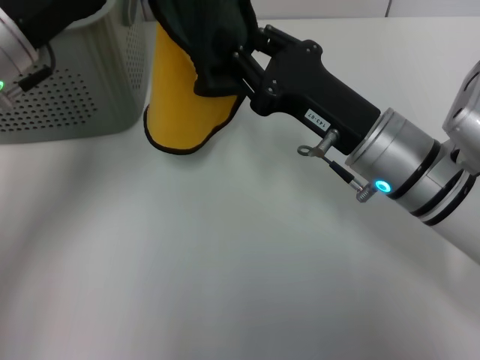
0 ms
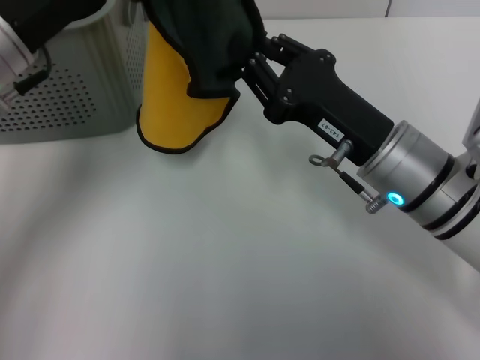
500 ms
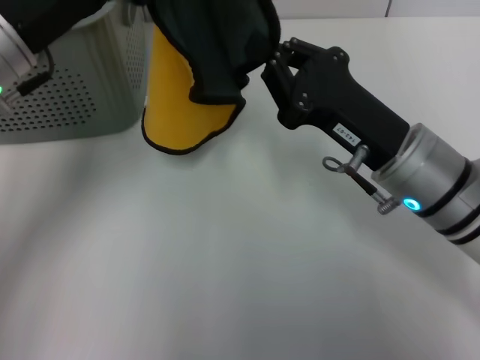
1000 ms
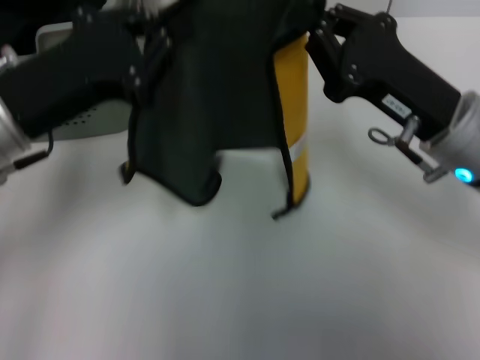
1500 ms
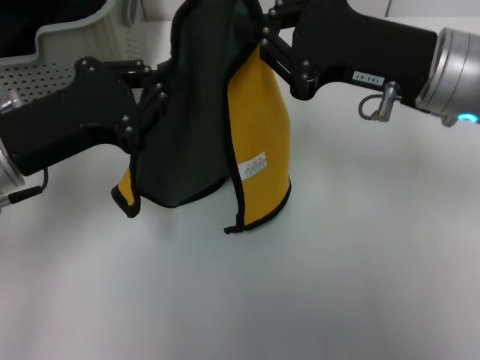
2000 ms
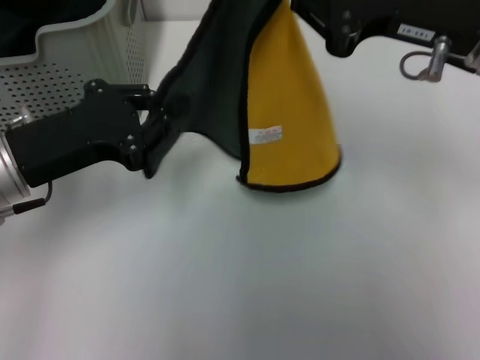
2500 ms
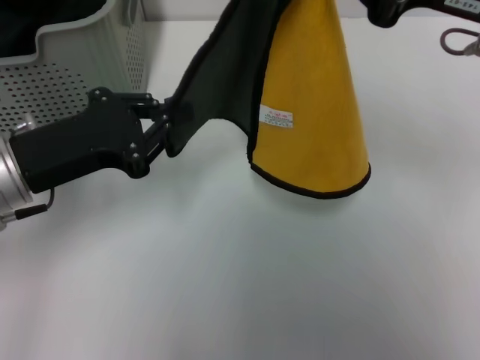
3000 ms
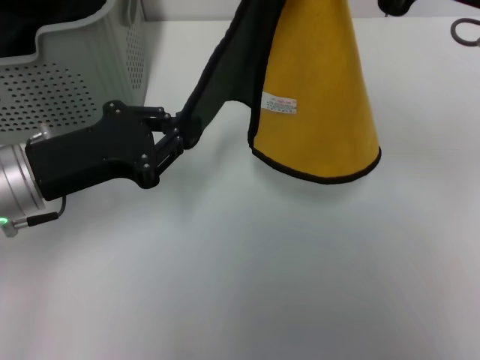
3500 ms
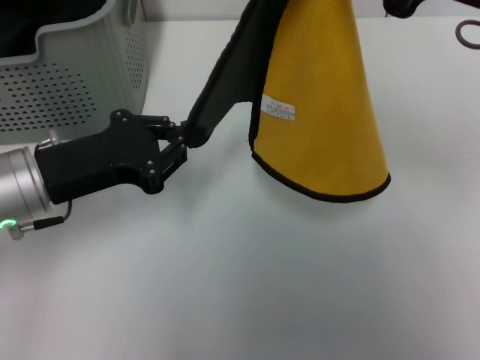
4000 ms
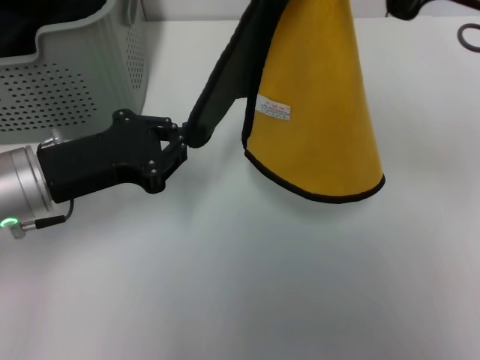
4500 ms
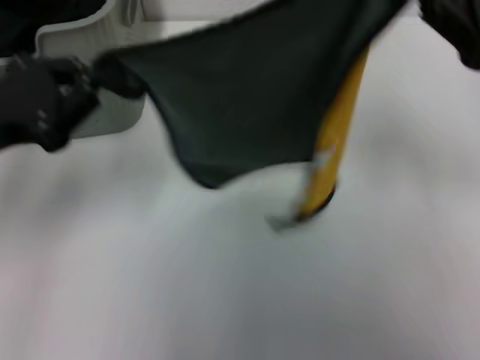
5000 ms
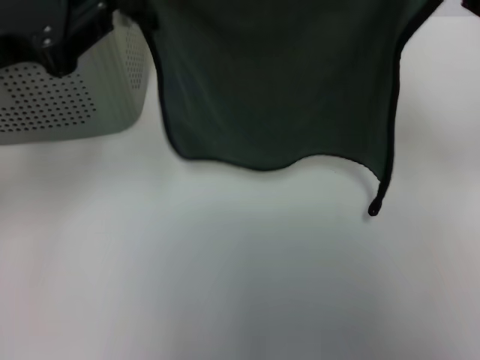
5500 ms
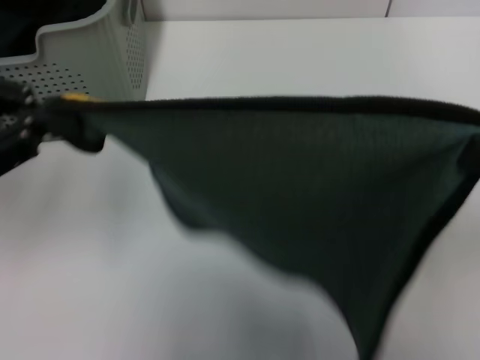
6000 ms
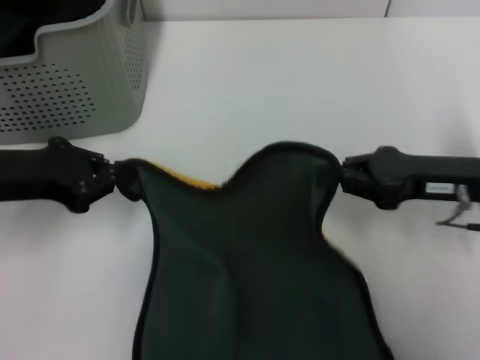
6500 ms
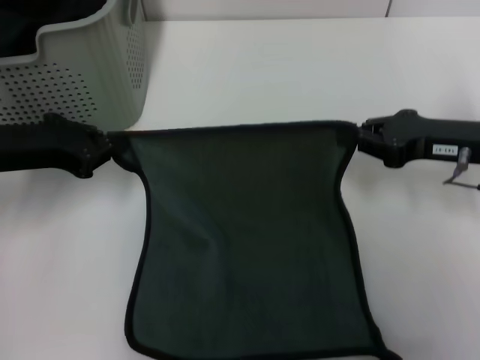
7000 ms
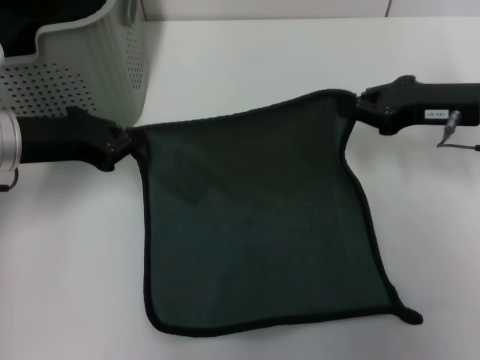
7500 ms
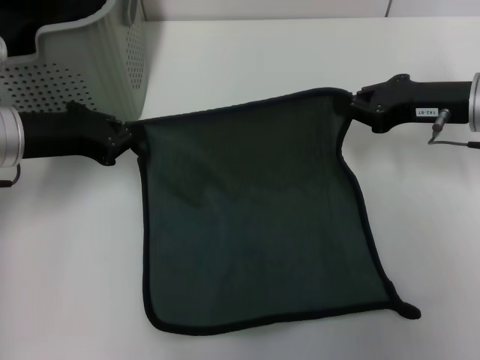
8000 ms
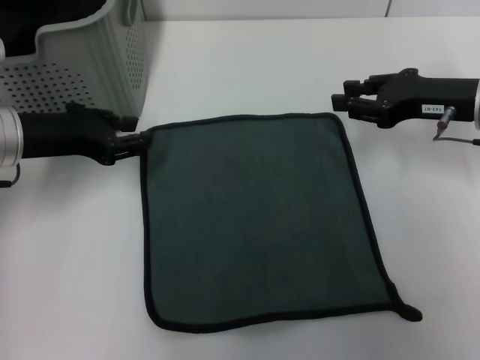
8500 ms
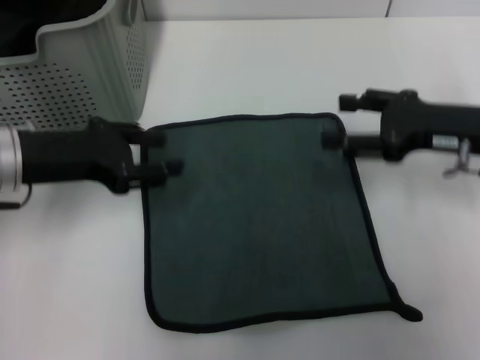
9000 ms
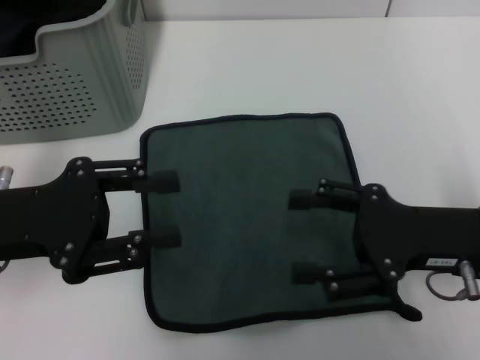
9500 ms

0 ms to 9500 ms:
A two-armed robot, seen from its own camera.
Task of the whole recording: pick up the towel from the storage box and lay it flat on the table.
Step, 500 ms to 8000 ms: Spread the towel flat with the right gripper.
0 ms to 2000 ms: The left gripper travels downward by roughly 5 cm; the right gripper goes about 10 cm upward, and closes up.
2000 ms to 4000 ms: The right gripper travels upward by some 5 cm.
4000 ms to 5500 ms: The right gripper travels to the right by some 10 cm; the left gripper shifts approximately 10 cm upward.
5500 ms to 7500 ms: The right gripper is displaced downward and forward by approximately 10 cm. The left gripper moves downward, about 10 cm.
7500 ms to 9500 ms: Both grippers travel together backward, approximately 10 cm. The left gripper opens its fingers. The right gripper opens its fingers.

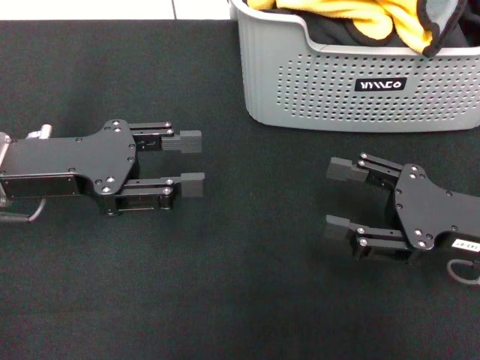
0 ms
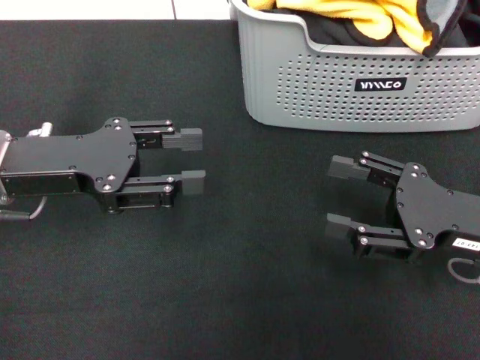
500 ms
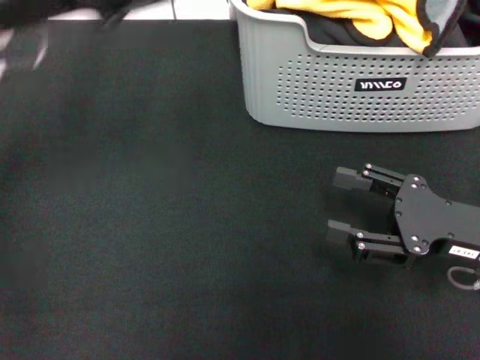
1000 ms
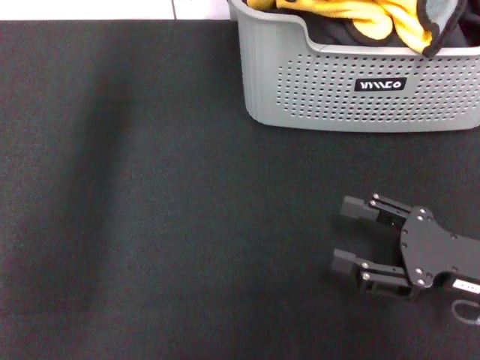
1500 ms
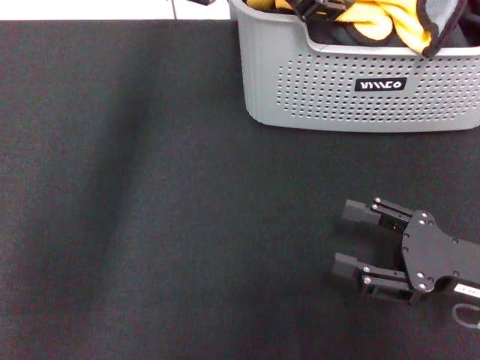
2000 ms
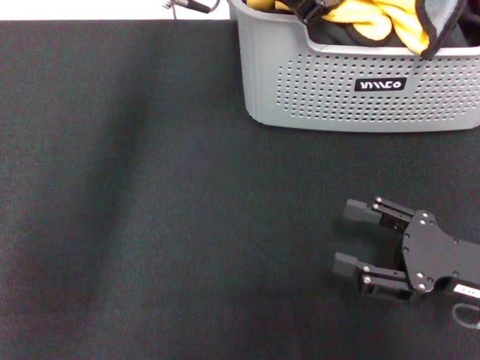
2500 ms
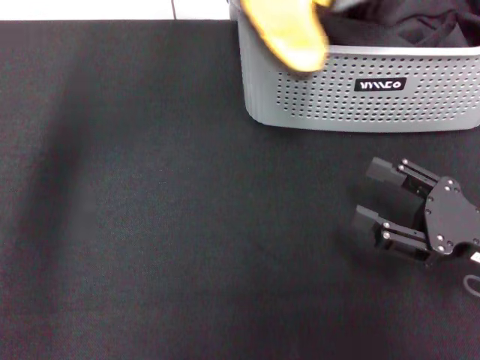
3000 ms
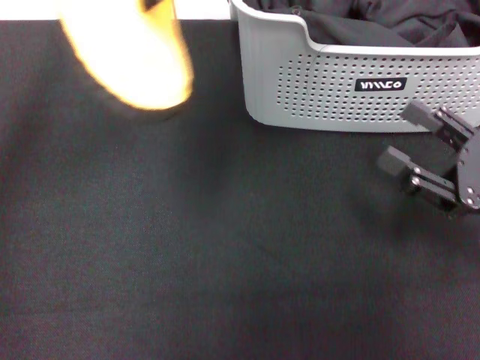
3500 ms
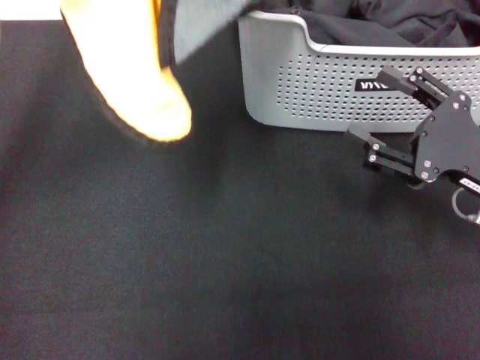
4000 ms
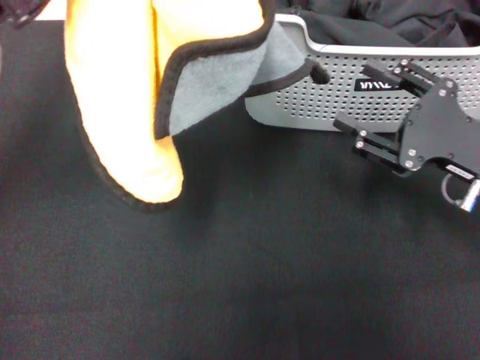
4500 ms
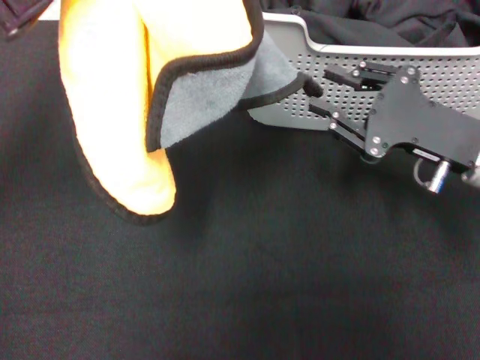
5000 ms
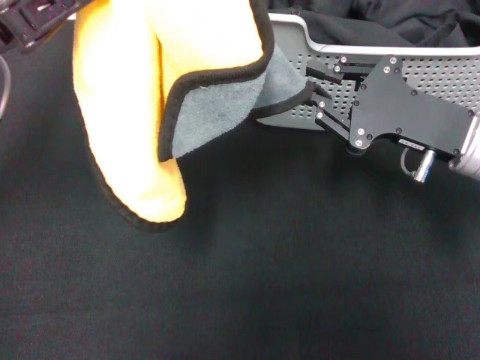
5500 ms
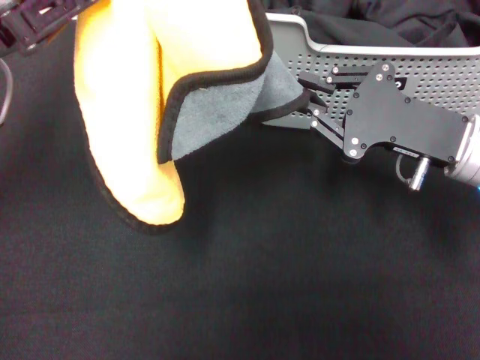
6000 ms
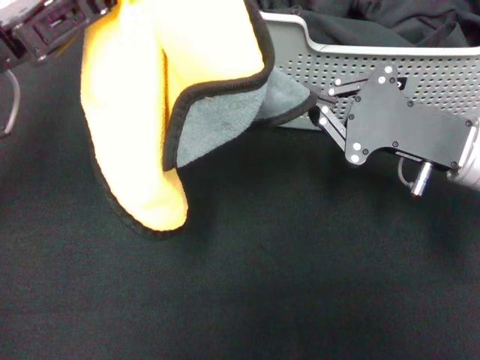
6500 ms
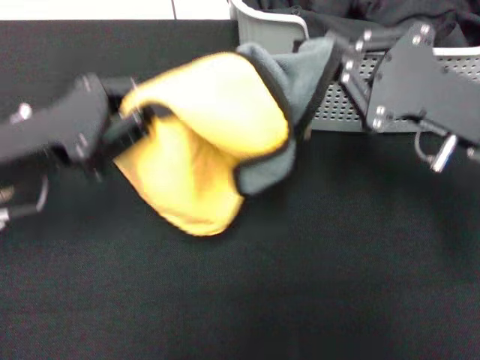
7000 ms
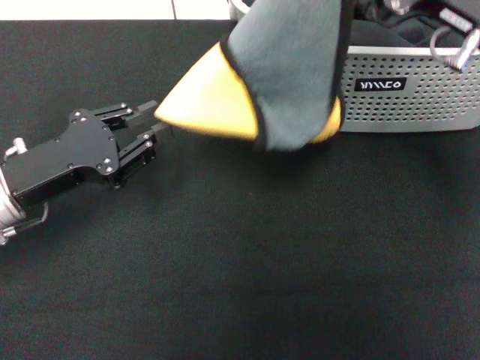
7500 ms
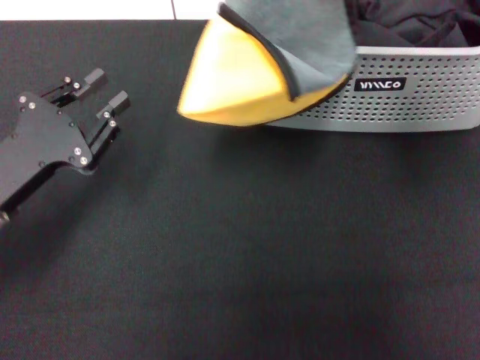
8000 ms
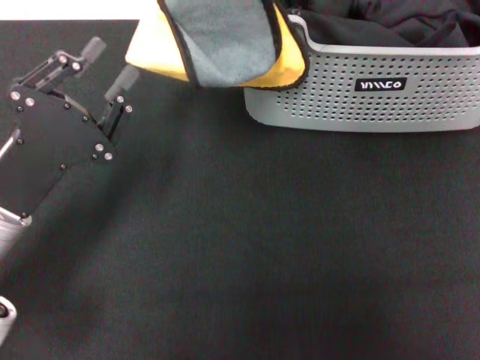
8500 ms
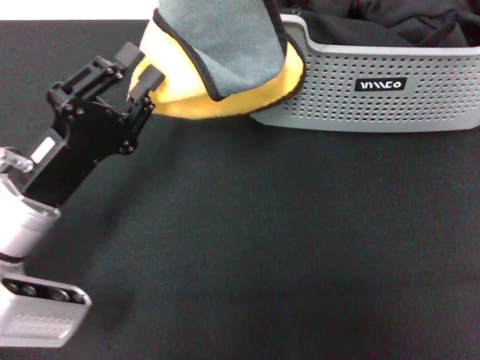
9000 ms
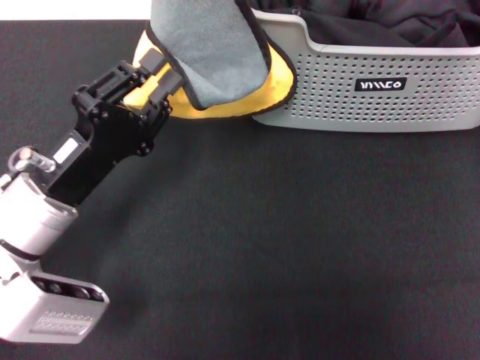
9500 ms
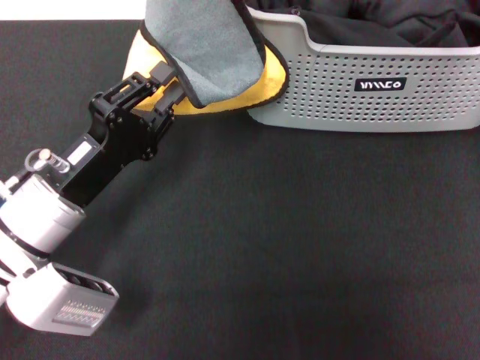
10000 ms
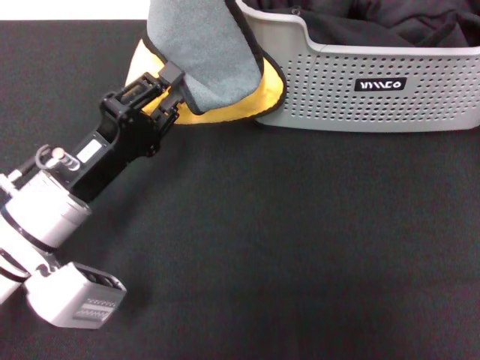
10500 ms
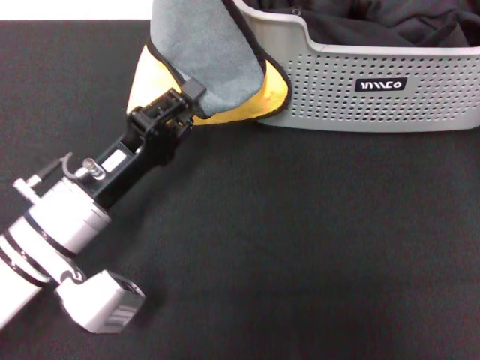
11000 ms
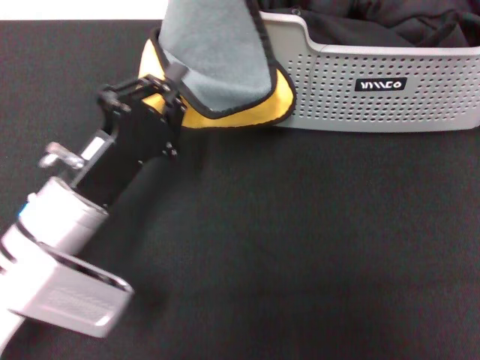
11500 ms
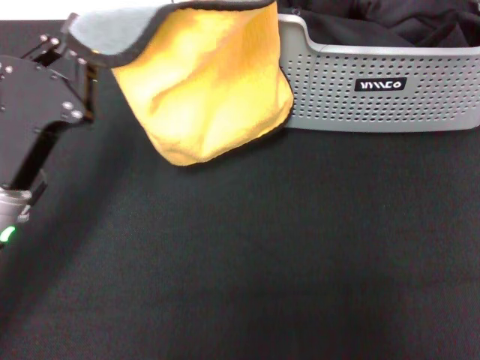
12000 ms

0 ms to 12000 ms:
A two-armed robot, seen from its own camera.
Task of the whole recording: pick up the towel from the storage box and lay it flat on the black tablecloth.
Step, 0 ms to 2500 ms: Pick up a towel with the left gripper.
Step, 3000 ms to 6000 ms: Spread the towel flat with the left gripper.
0 ms to 2000 ms: The left gripper travels to the right, forward and upward by approximately 25 cm.
2000 ms to 4000 ms: The right gripper goes roughly 5 cm forward. Meanwhile the left gripper heads to the left and backward, covering approximately 20 cm, and closes its fingers.
4000 ms to 6000 ms: The right gripper shifts by approximately 5 cm, and closes up.
6000 ms to 8000 ms: The right gripper goes roughly 15 cm upward; the left gripper is displaced downward and backward by approximately 15 cm, and opens up.
8000 ms to 10000 ms: The left gripper goes approximately 5 cm to the right. Meanwhile the right gripper moves to the left and forward, roughly 10 cm.
10000 ms to 12000 ms: The right gripper heads to the right, covering roughly 5 cm, while the left gripper closes up.

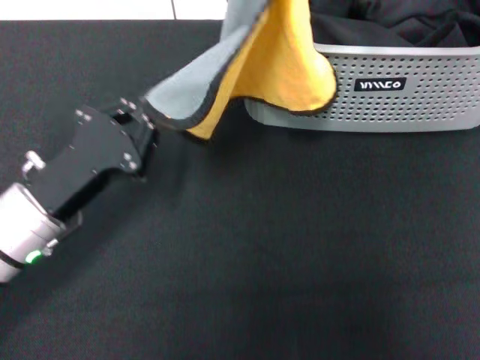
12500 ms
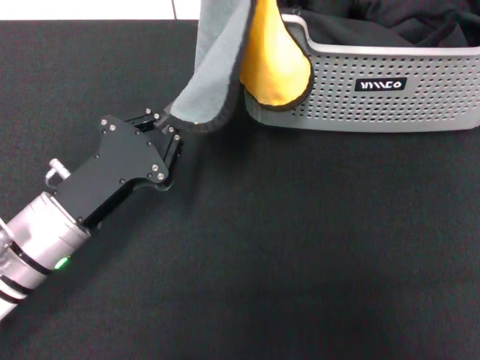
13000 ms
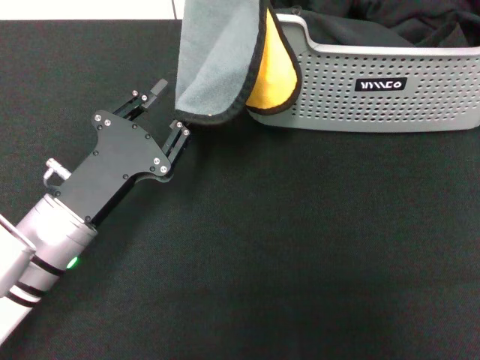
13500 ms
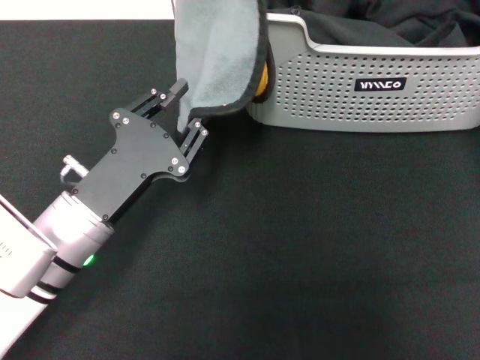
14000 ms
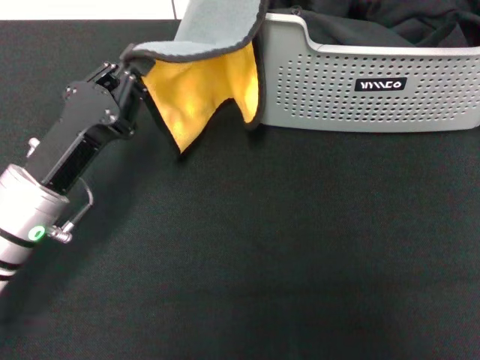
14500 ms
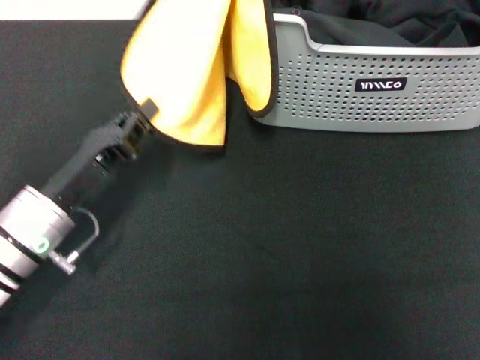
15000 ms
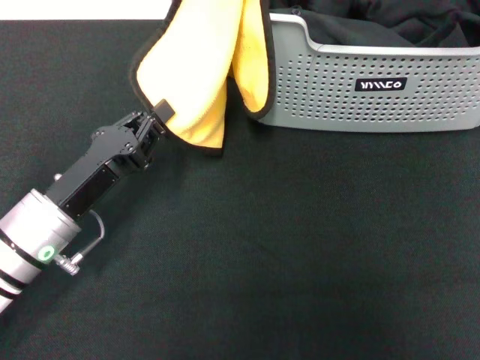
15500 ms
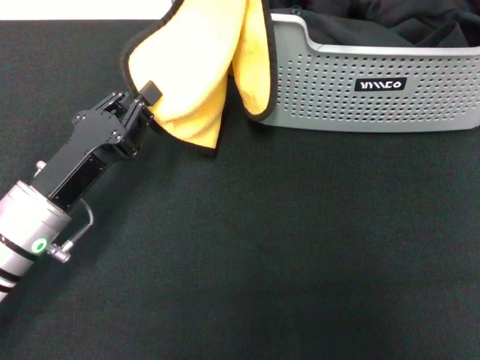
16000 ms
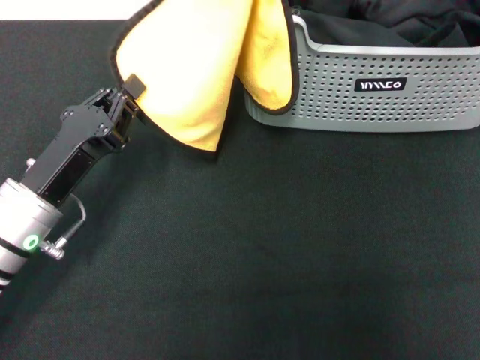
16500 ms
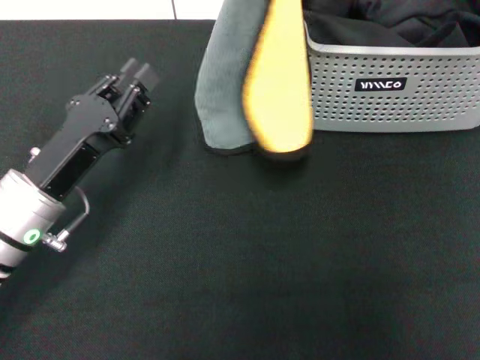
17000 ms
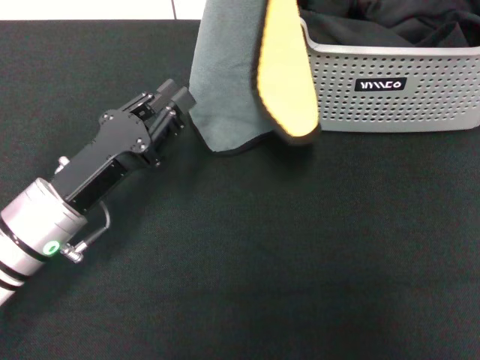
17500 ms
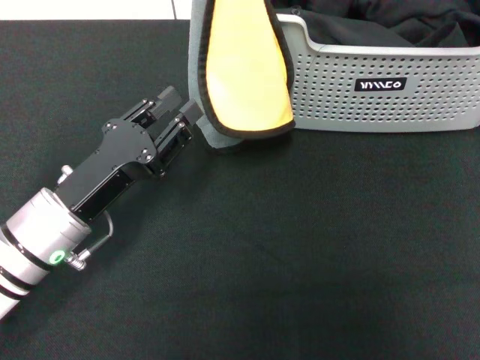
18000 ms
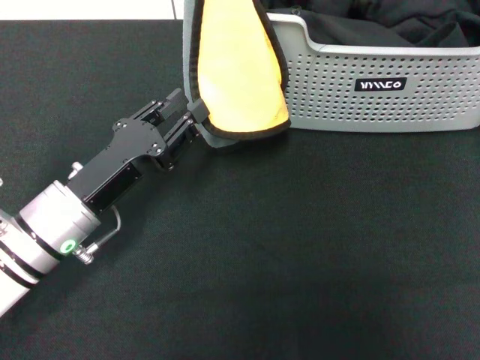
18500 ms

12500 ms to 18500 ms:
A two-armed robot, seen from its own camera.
Task of the whole recording: pick up the towel from the storage box and lay it flat on the black tablecloth.
12500 ms to 14500 ms: The right gripper heads forward, covering approximately 5 cm.
14500 ms to 16500 ms: The right gripper shifts by roughly 5 cm.
16500 ms to 18500 ms: The left gripper opens its fingers, while the right gripper moves to the left, approximately 5 cm.
